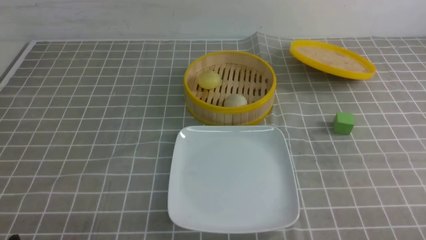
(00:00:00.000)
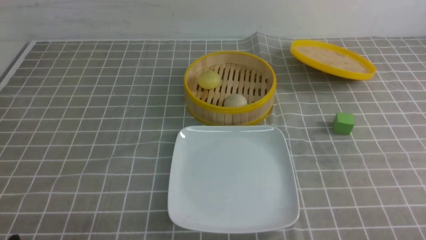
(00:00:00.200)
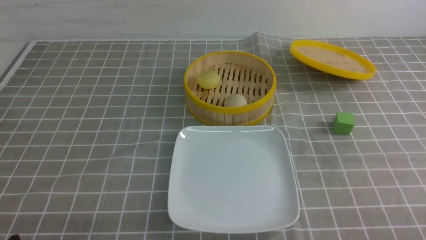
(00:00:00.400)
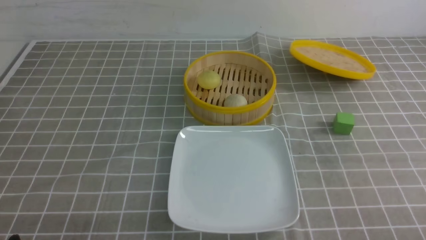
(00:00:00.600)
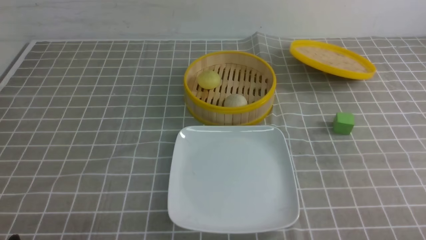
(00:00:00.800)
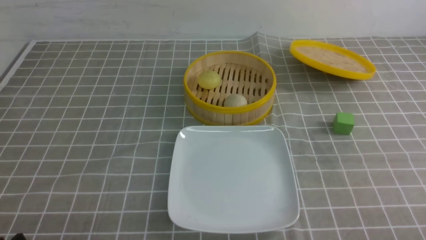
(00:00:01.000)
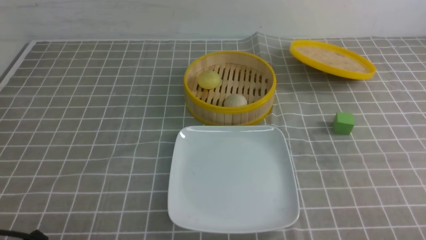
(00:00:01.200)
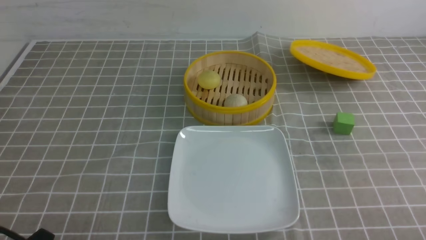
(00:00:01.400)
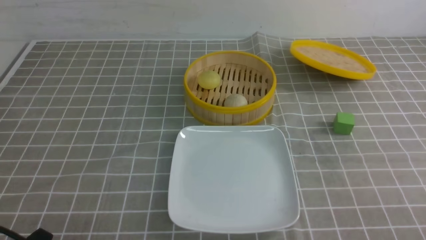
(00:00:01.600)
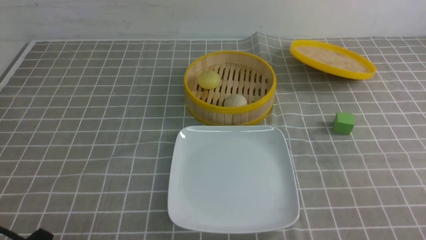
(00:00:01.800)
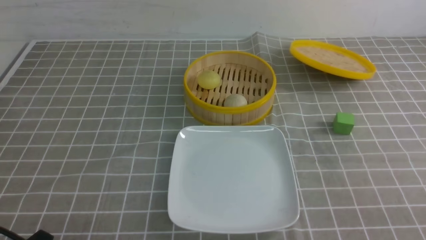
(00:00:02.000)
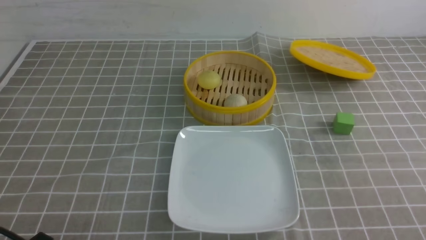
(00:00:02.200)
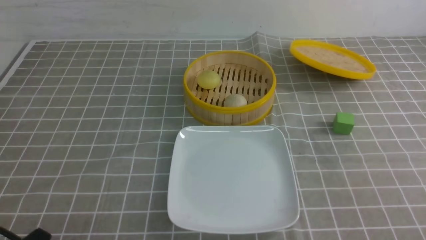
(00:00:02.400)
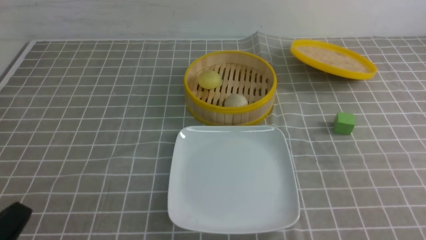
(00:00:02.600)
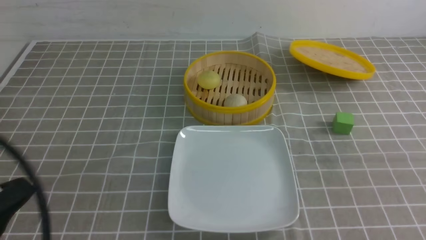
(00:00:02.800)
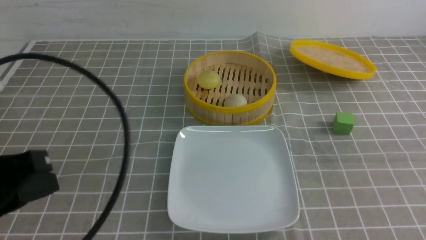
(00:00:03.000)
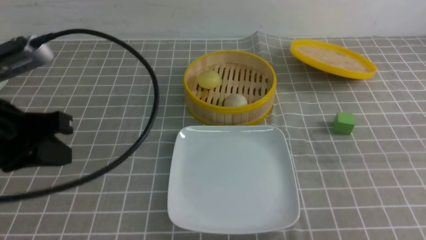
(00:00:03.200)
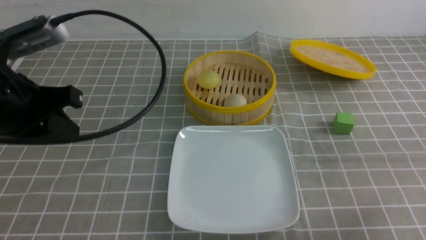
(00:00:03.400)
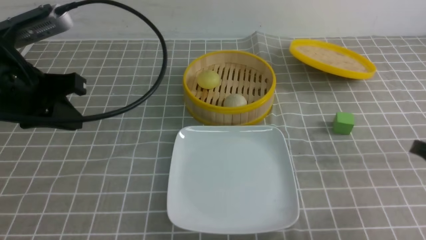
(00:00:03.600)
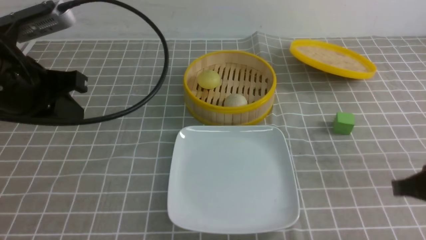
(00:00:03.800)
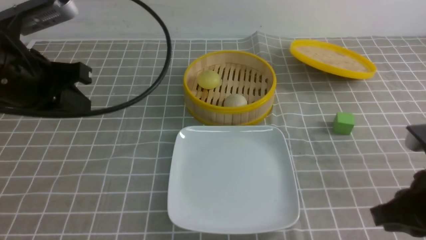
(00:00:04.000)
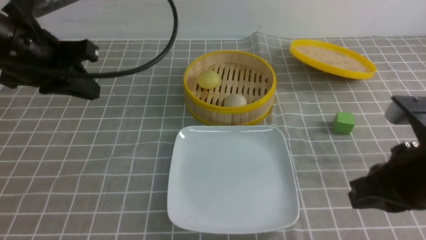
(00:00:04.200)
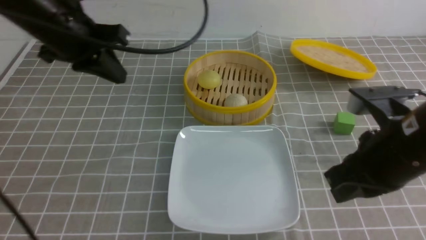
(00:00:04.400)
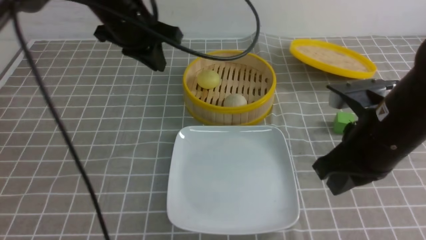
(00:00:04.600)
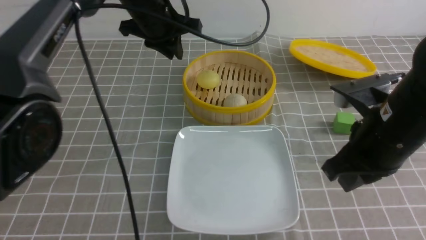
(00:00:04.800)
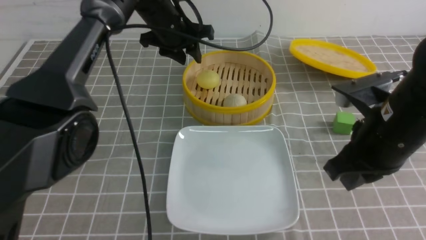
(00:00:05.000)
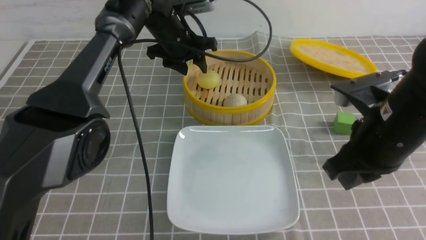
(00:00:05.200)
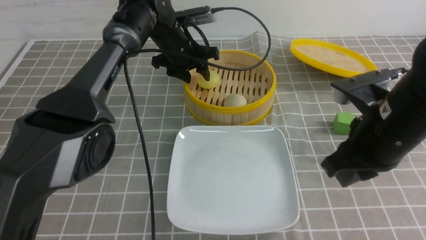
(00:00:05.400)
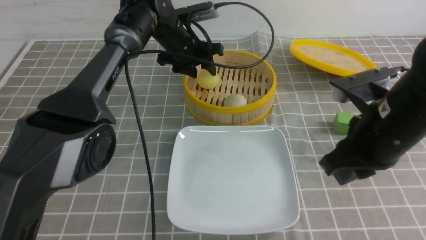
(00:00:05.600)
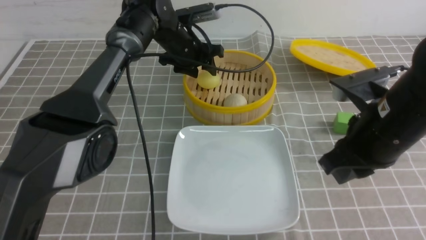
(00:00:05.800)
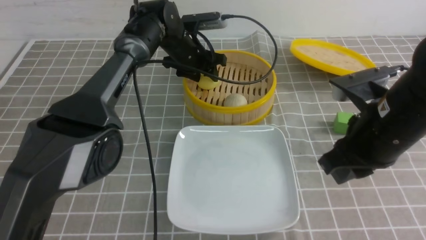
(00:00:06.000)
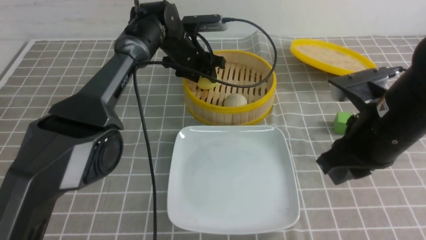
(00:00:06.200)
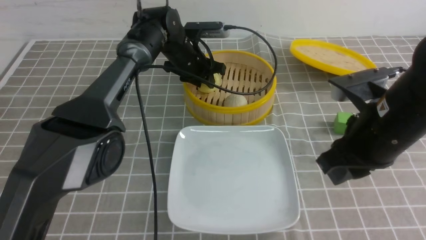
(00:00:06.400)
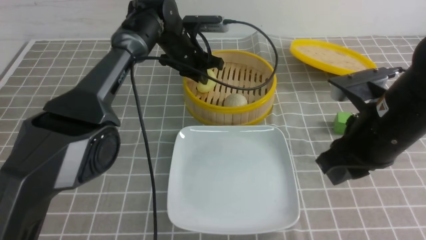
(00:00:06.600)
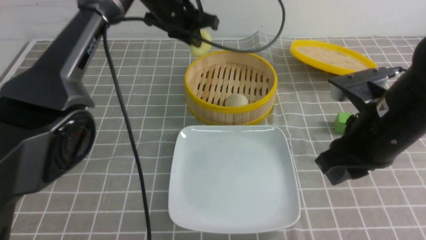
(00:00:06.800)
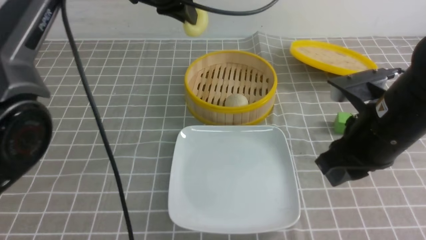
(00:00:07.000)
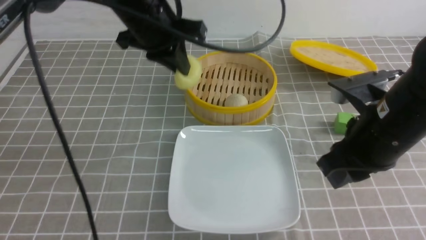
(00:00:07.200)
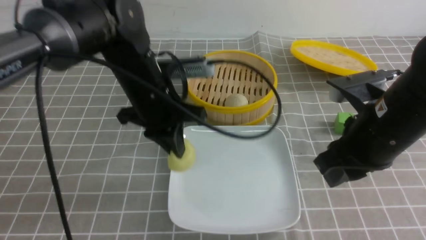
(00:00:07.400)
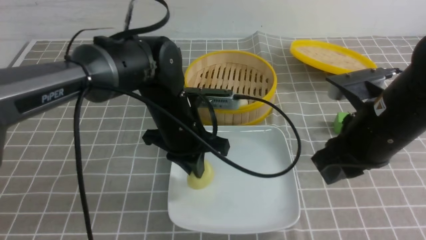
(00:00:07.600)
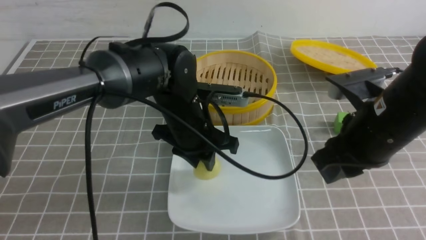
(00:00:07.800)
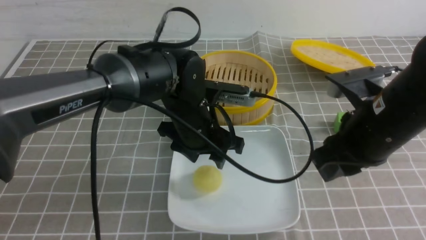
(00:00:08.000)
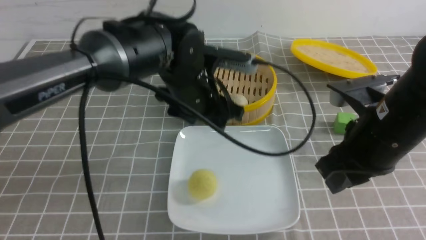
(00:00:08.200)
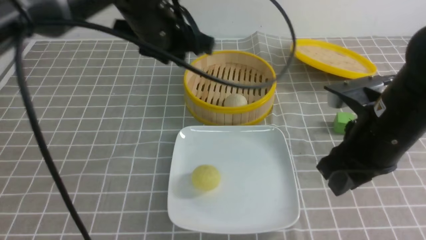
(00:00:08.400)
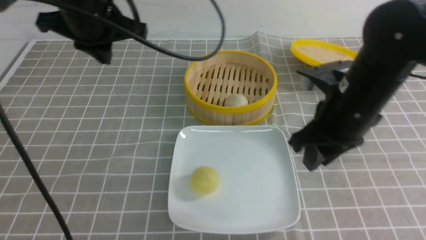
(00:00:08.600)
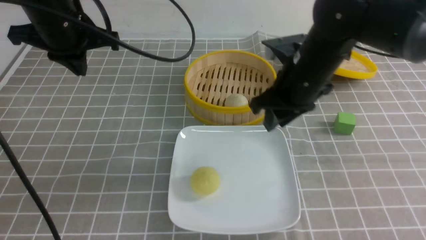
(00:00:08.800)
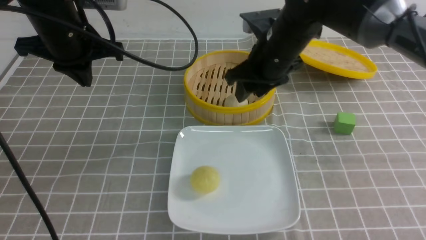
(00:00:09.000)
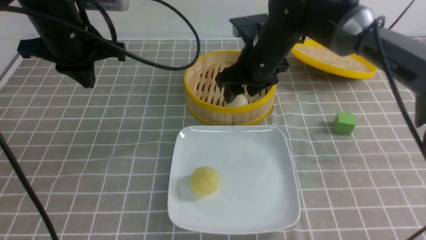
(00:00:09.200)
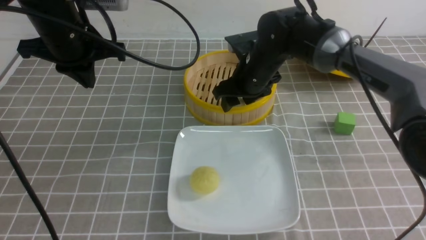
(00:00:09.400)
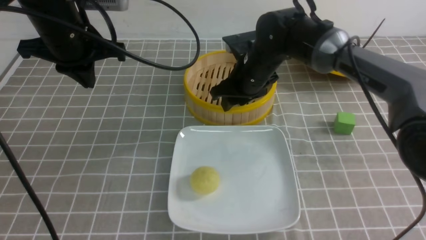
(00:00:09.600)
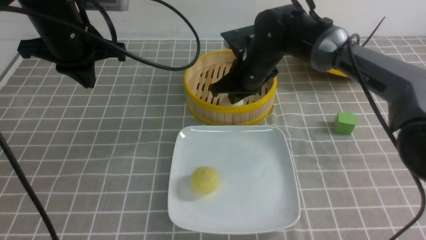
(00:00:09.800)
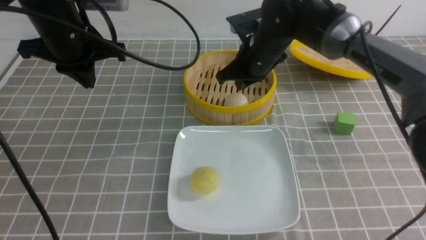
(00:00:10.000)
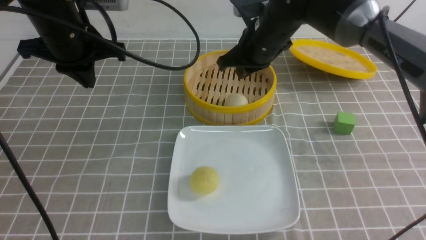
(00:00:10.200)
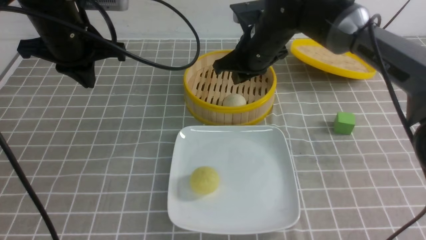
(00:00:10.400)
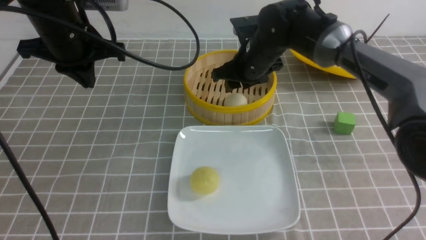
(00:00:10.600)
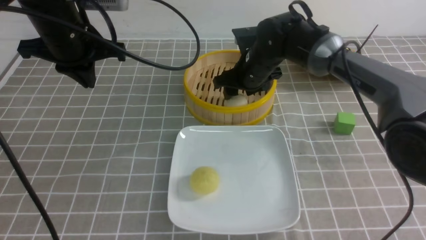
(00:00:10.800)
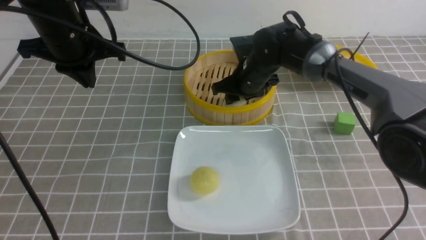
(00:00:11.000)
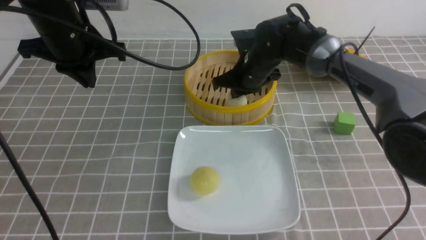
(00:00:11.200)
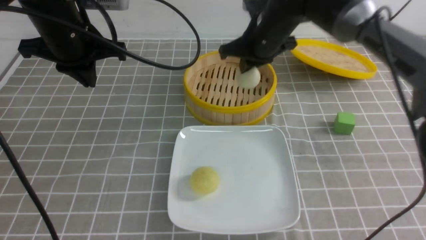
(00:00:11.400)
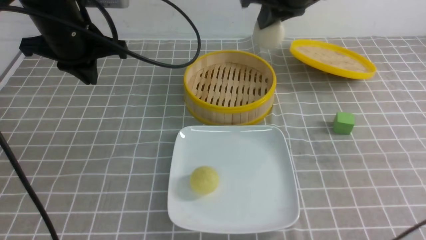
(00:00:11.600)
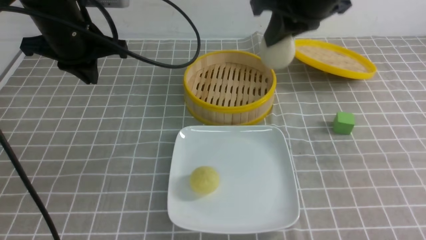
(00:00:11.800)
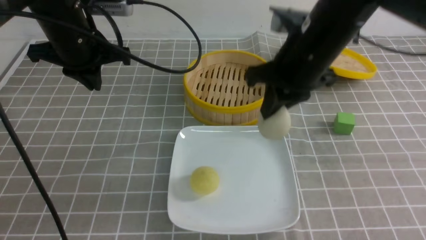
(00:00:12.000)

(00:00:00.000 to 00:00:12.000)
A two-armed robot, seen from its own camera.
Step, 00:00:00.000 - 00:00:06.600: use the left arm to grab the steamed stuffed bun that is closest to it.
Step, 00:00:06.800 - 00:00:08.000: use the left arm to put the steamed stuffed bun into the plate.
Step, 00:00:08.200 - 00:00:11.200: use the right arm to grab the steamed stuffed bun that is closest to it.
00:00:01.600 - 00:00:03.000: The left gripper is displaced upward by roughly 15 cm, and closes.
00:00:03.000 - 00:00:04.400: The left gripper moves forward, some 25 cm. Meanwhile the right gripper is displaced to the left and forward by roughly 15 cm.
00:00:04.400 - 00:00:06.000: The left gripper shifts approximately 30 cm forward, to the right and downward, and opens its fingers.
00:00:06.000 - 00:00:07.600: The left gripper travels backward by roughly 20 cm, and closes its fingers.
00:00:07.600 - 00:00:09.000: The right gripper goes some 15 cm forward and to the left. Meanwhile the left gripper travels to the left and upward by approximately 15 cm, and opens and closes again.
00:00:09.000 - 00:00:10.400: The right gripper goes about 5 cm forward, and closes.
00:00:10.400 - 00:00:12.000: The right gripper swings up and down, about 20 cm each way, with 2 reversals, and opens and closes again.

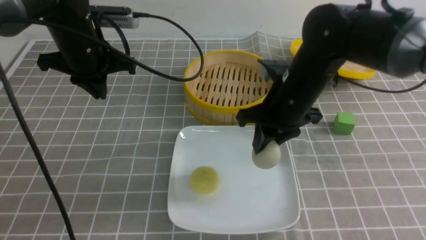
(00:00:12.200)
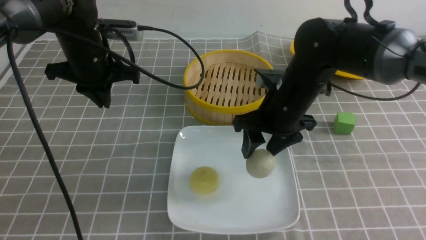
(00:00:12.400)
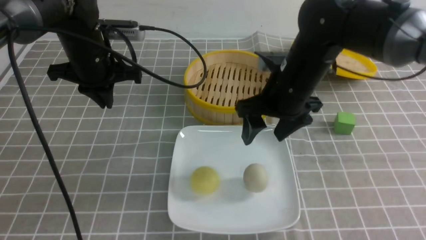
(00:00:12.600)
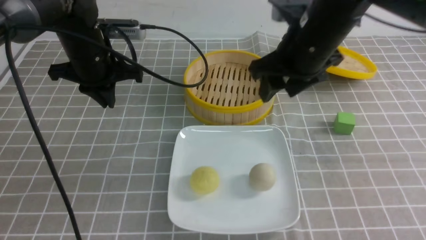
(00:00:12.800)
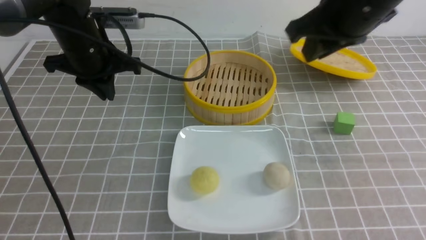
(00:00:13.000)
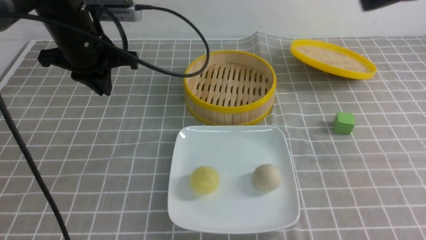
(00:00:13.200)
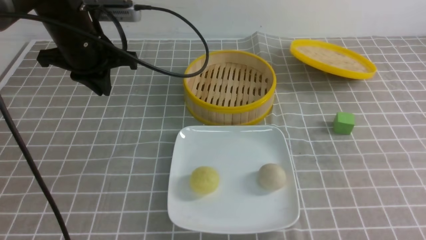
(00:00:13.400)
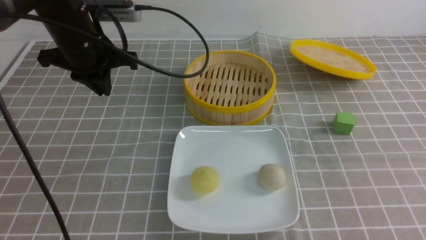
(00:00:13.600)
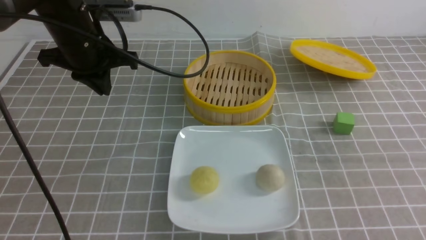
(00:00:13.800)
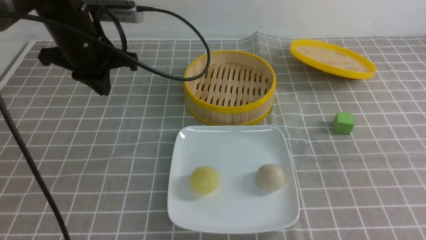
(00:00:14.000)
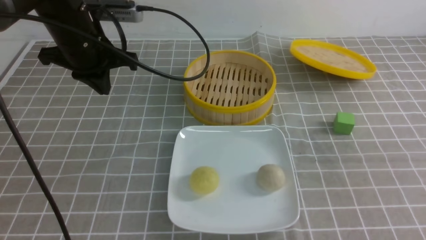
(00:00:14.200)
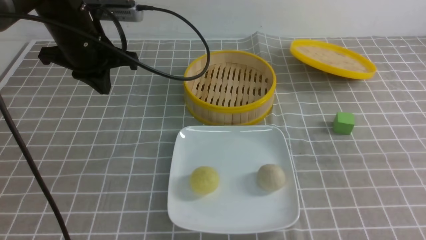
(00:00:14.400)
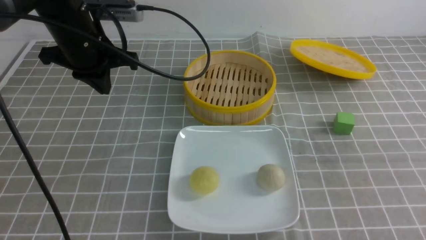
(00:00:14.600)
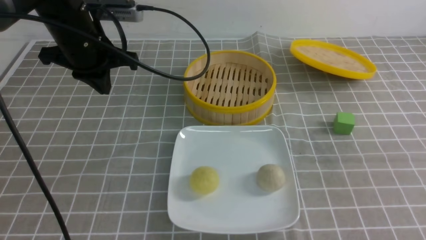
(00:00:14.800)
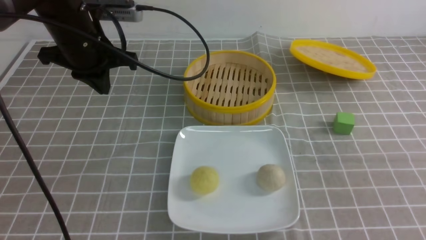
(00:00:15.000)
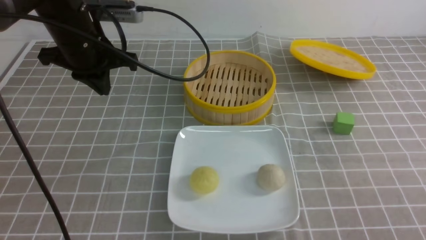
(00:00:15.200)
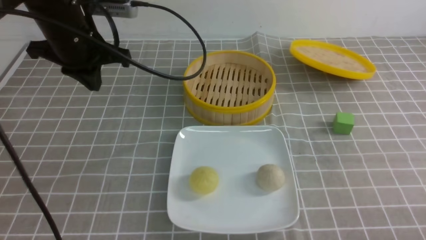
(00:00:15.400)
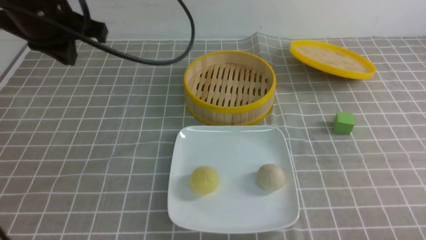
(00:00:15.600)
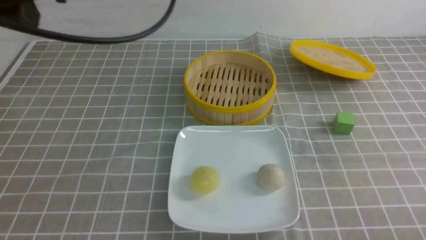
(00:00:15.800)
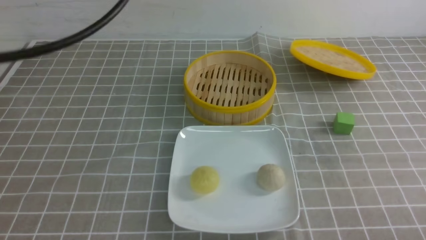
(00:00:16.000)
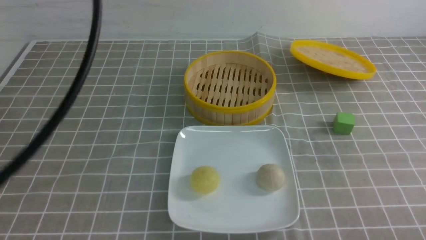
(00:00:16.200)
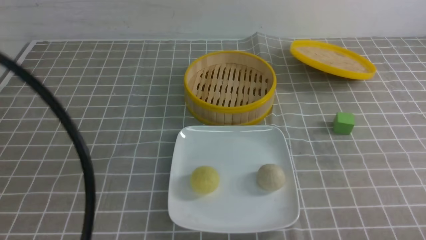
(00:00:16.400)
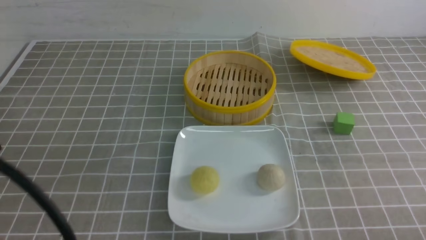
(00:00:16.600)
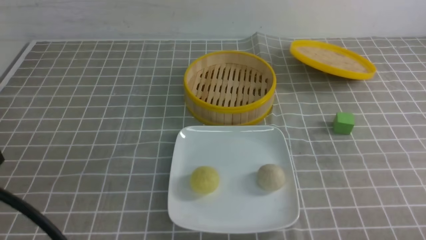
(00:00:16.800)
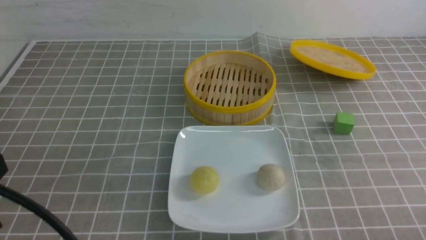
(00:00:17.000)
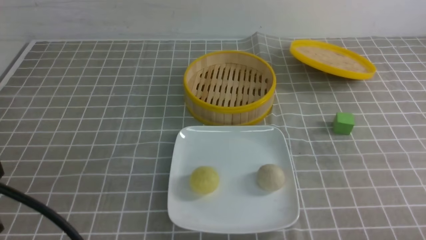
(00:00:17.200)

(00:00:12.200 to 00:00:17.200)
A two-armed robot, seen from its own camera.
00:00:12.200 - 00:00:13.800: The right gripper travels backward, to the right and upward by some 35 cm, and closes up.
00:00:13.800 - 00:00:15.600: The left gripper moves upward, about 5 cm, while the right gripper travels downward by approximately 25 cm.
00:00:15.600 - 00:00:17.200: The left gripper goes some 30 cm backward.
